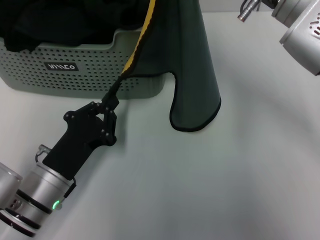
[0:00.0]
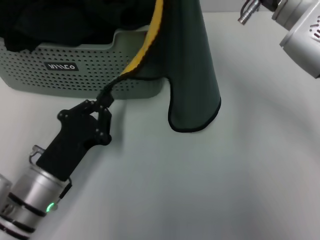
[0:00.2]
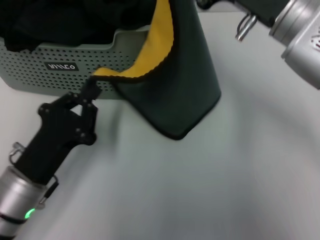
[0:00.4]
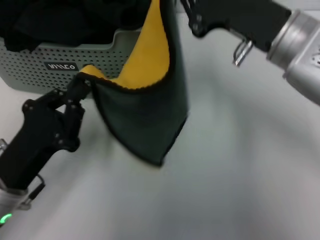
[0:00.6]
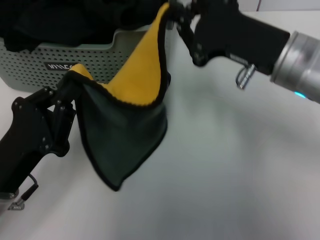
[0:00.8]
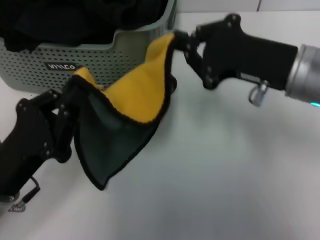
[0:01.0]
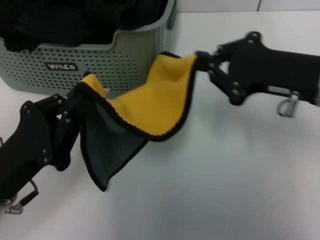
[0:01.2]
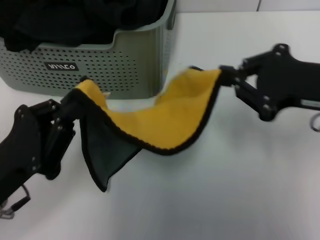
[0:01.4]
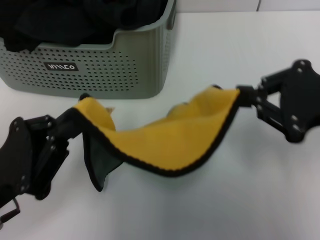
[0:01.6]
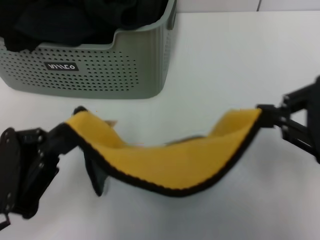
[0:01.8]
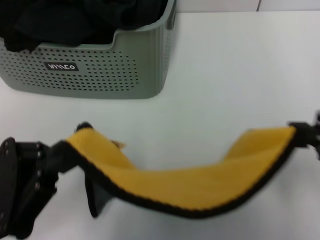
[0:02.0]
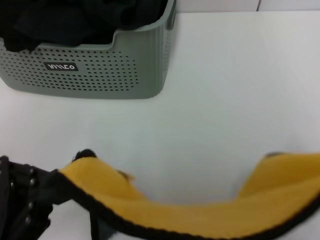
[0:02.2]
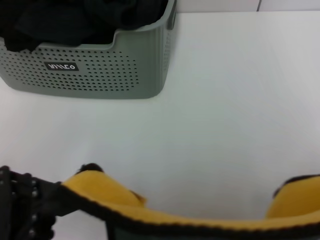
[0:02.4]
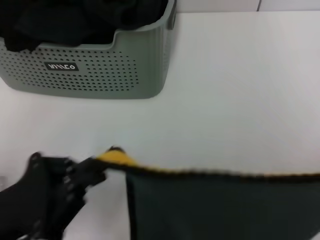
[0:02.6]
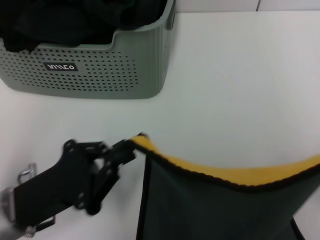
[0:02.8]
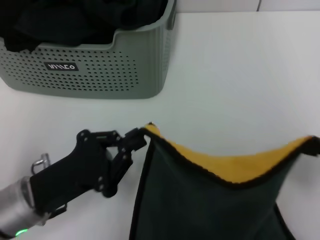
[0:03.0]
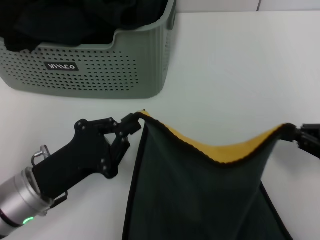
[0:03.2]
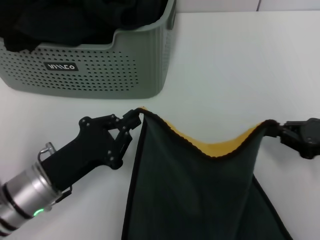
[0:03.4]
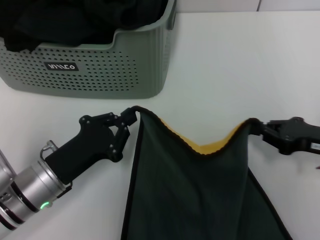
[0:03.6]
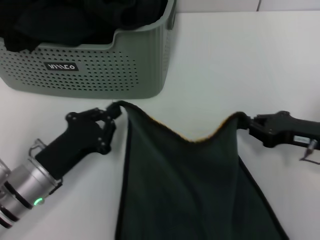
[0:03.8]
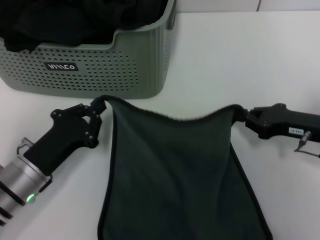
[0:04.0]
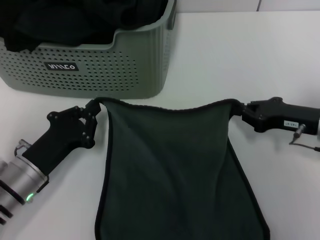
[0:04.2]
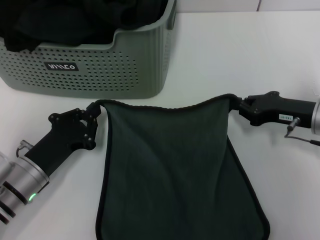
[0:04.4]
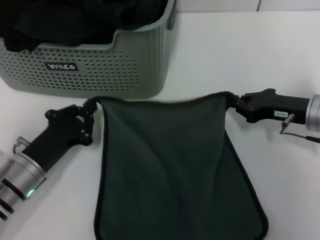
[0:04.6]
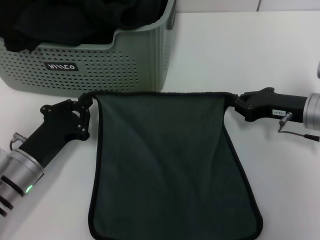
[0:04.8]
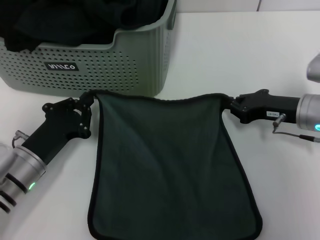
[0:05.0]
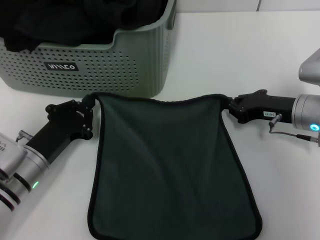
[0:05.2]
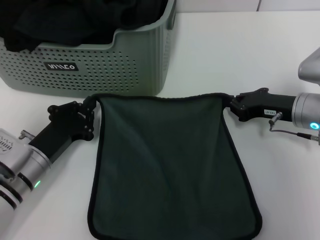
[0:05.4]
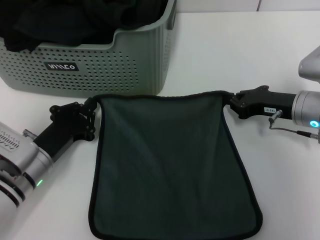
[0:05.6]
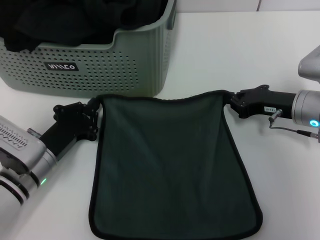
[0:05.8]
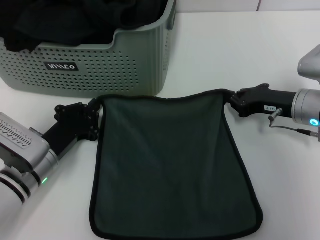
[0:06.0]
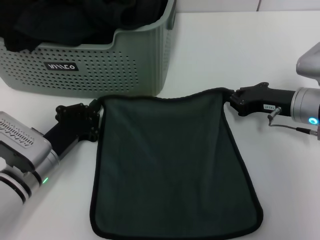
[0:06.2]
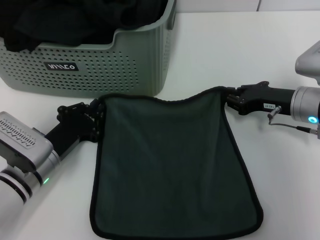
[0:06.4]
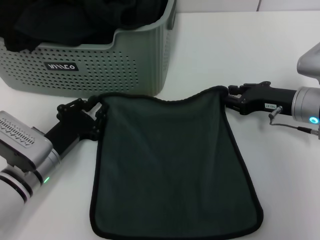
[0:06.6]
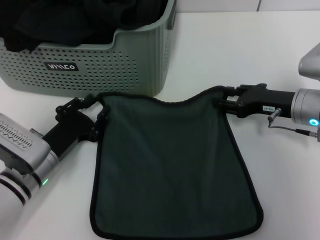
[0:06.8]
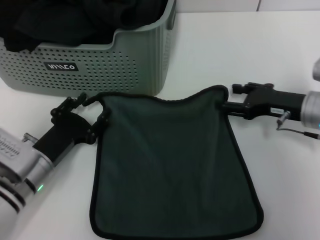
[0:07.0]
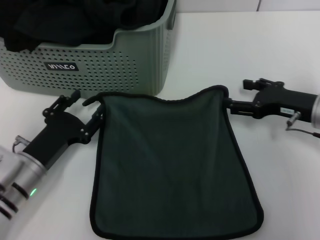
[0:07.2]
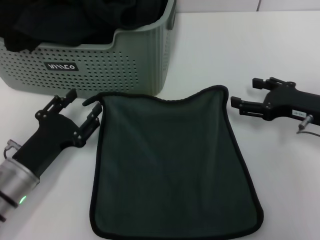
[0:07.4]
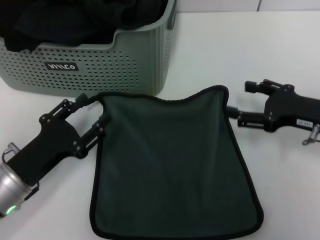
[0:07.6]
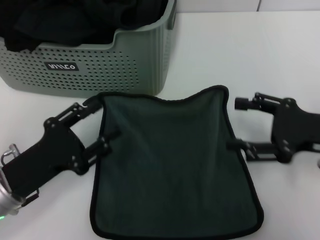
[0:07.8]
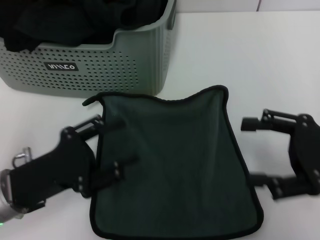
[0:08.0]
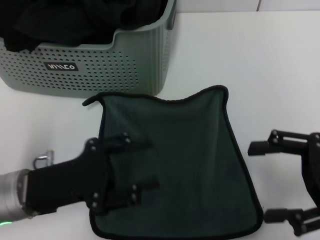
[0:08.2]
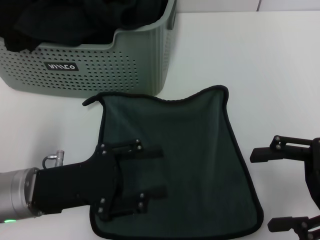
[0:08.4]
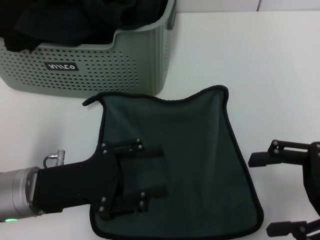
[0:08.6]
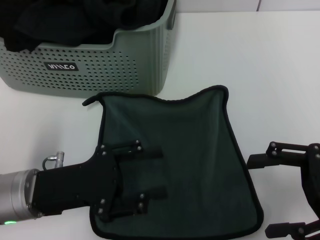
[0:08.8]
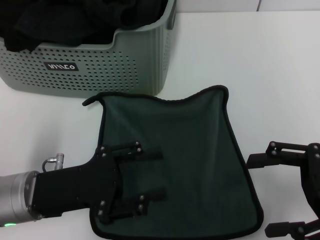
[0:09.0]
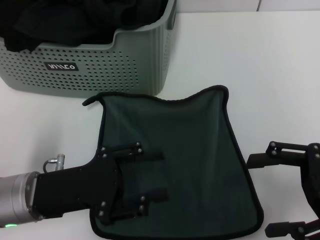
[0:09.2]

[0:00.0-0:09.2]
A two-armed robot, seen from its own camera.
Task of the whole recording: pick up the towel from the storage box and lay it flat on the table.
Step, 0:00.0 to 0:06.6: Spread the towel flat with the right gripper.
0:00.0 to 0:01.6: The left gripper is displaced upward and to the left by approximately 10 cm. Meanwhile the right gripper shifts roughly 15 cm to the right and backward.
0:01.6 to 0:03.0: The left gripper ends up about 5 cm from where it was; the right gripper is displaced to the right and downward by approximately 15 cm.
0:03.0 to 0:04.6: The right gripper heads forward and to the left, covering roughly 15 cm, while the left gripper changes place by some 5 cm.
0:04.6 to 0:06.2: The grippers stay close to where they were, moving slightly.
0:06.2 to 0:07.6: The grippers both shift backward by some 5 cm. The right gripper opens its fingers, while the left gripper opens its fingers.
0:07.6 to 0:09.2: The left gripper ends up approximately 5 cm from where it was, while the right gripper moves backward, roughly 5 cm.

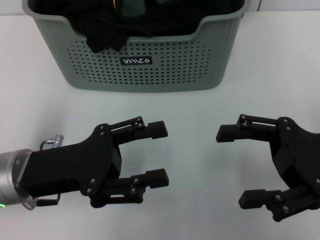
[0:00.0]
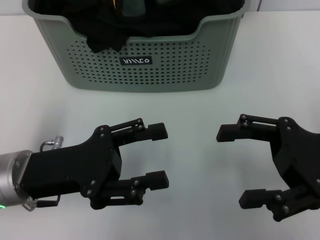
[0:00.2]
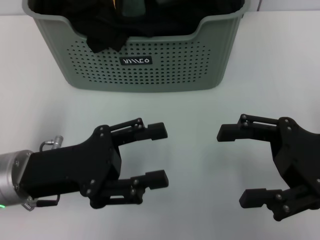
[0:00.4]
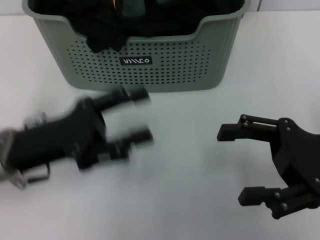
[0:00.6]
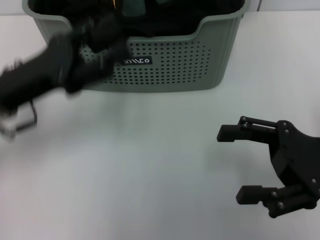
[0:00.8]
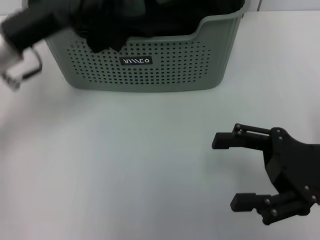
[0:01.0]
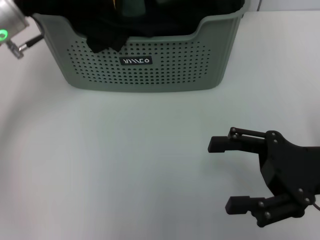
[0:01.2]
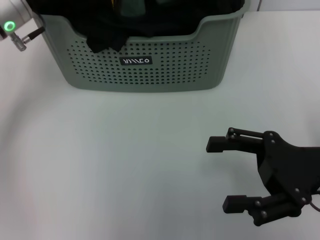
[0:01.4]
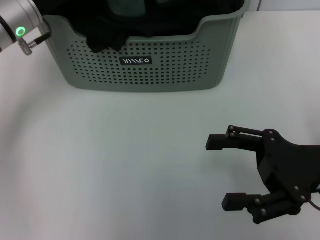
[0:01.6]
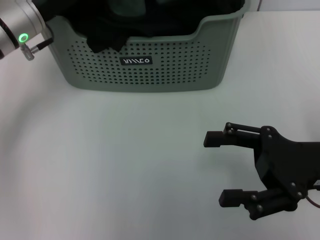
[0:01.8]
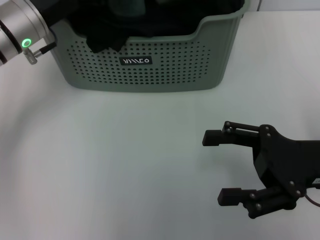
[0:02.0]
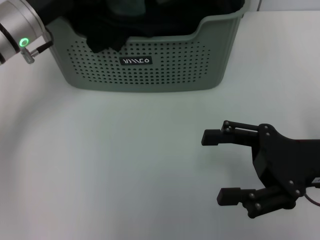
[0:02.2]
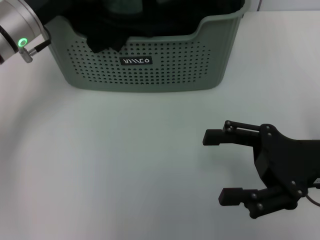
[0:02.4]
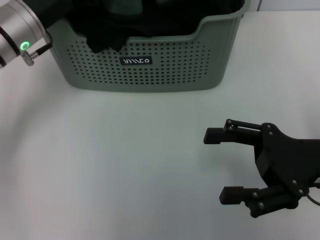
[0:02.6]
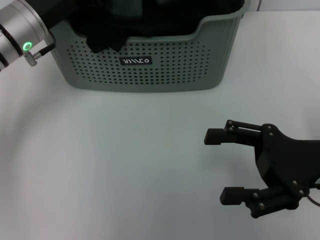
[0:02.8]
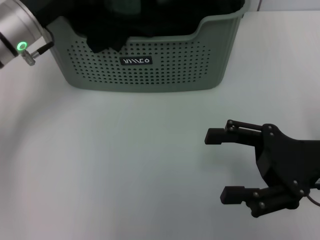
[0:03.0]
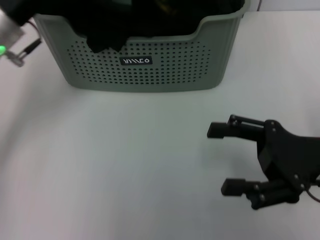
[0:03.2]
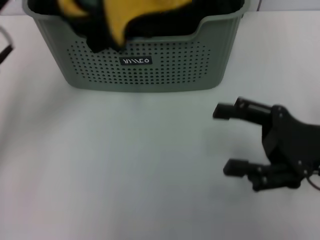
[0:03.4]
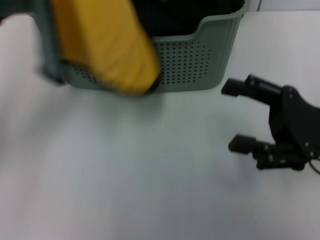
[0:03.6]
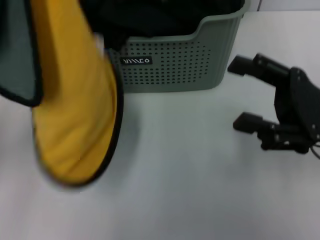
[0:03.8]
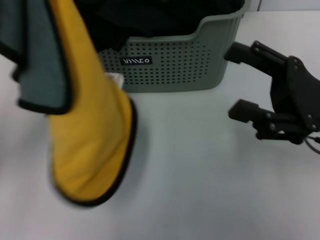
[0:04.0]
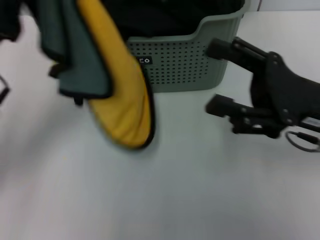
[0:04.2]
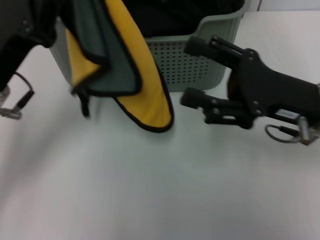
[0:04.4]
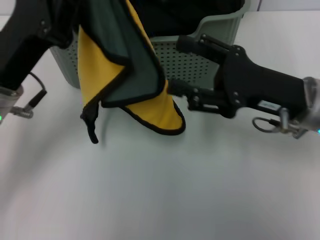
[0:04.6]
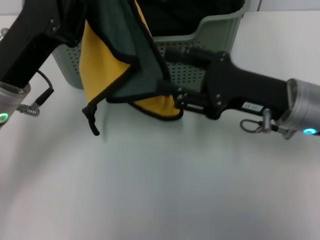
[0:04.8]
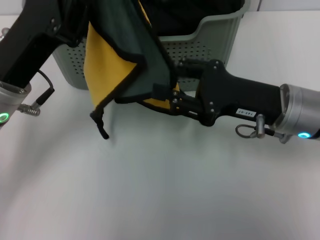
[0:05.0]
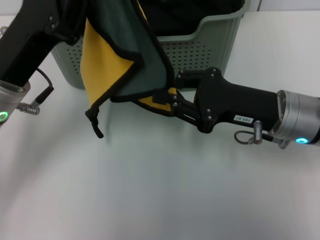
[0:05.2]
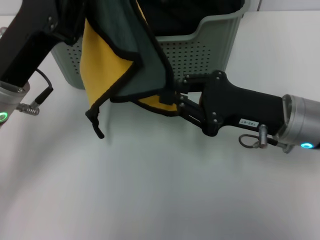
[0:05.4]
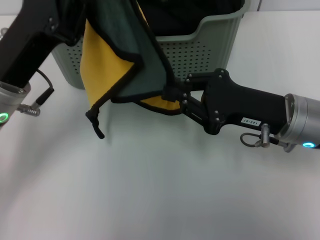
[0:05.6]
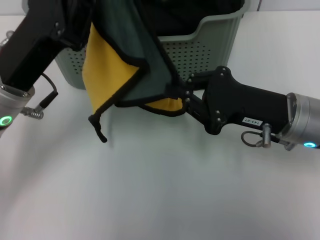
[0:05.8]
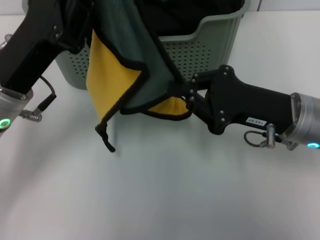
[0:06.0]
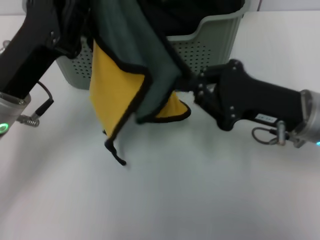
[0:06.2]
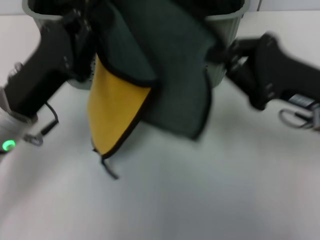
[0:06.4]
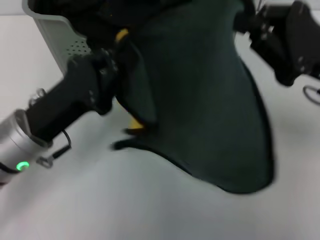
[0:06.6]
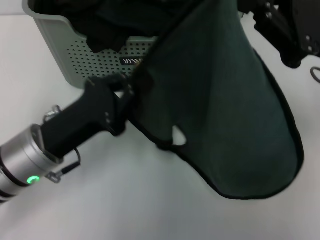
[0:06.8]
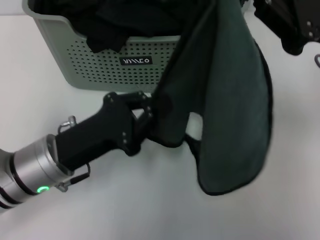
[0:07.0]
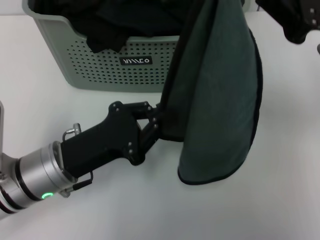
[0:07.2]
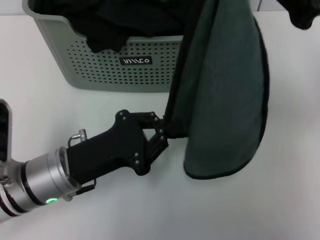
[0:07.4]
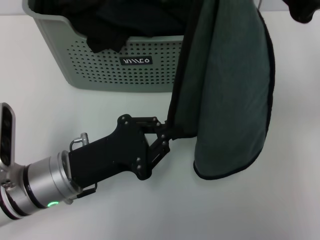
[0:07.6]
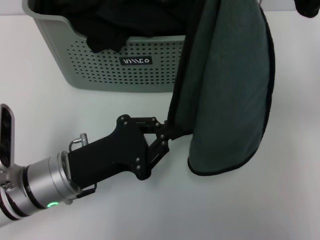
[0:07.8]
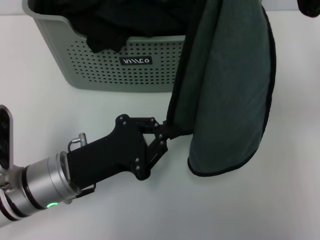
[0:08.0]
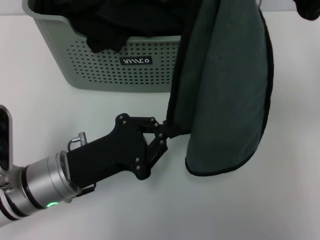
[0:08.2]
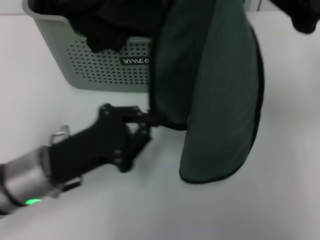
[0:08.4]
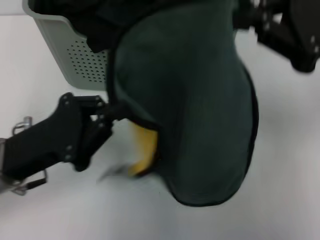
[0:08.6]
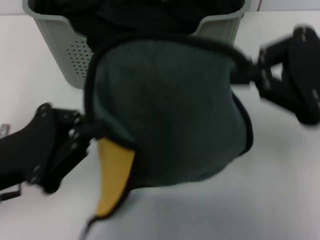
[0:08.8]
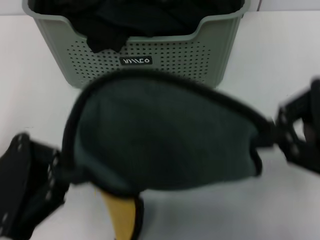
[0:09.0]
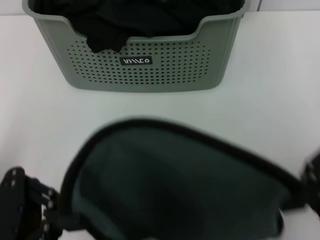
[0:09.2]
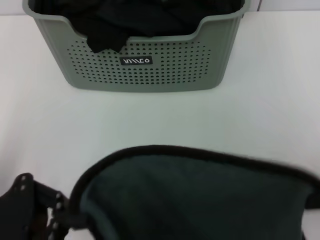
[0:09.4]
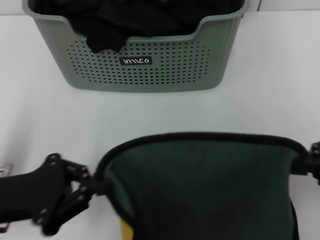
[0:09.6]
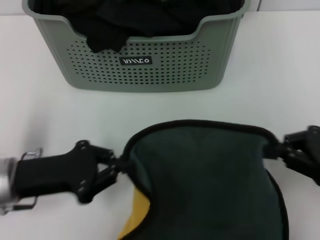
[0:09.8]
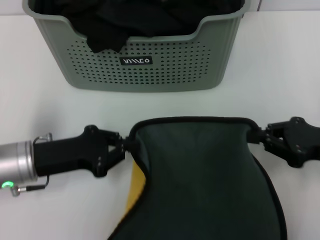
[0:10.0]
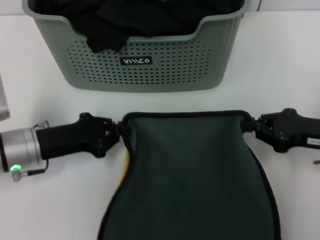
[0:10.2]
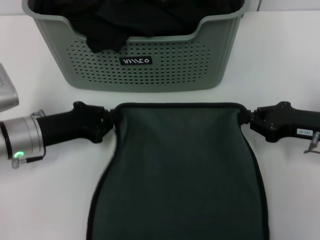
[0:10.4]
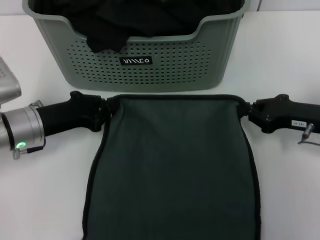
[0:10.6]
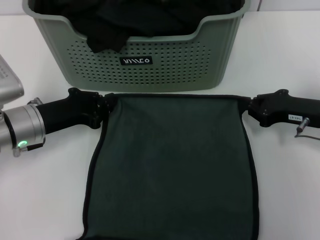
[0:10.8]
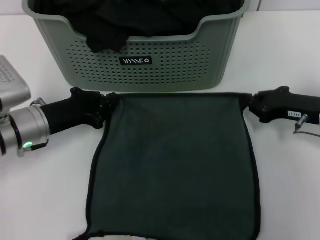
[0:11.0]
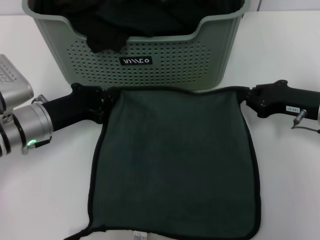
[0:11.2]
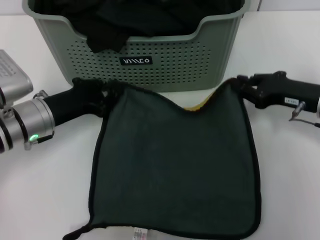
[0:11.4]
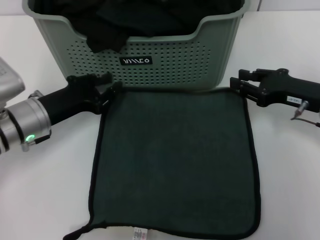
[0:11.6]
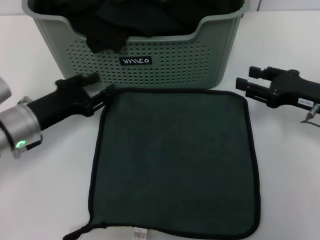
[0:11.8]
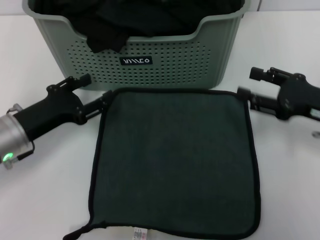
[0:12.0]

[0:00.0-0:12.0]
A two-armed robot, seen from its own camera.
Task of the whole recording: pick up the towel from the storage box and lay it flat on the table.
Step, 0:00.0 to 0:03.0: Pick up a towel with the left gripper.
Step, 0:03.2 to 0:05.8: Spread the towel flat with the left gripper.
Step, 0:06.0 to 0:11.6: Spread the towel flat with the right gripper.
0:00.0 to 0:01.6: The left gripper goes about 15 cm forward.
0:01.6 to 0:03.0: The left gripper closes.
0:03.0 to 0:04.4: The left gripper heads backward, covering some 10 cm; the right gripper moves some 5 cm.
0:04.4 to 0:06.0: The right gripper closes up.
0:06.0 to 0:07.6: The left gripper moves downward, about 10 cm. Meanwhile the right gripper moves upward, approximately 15 cm.
0:07.6 to 0:09.0: The left gripper goes some 10 cm to the left and upward, while the right gripper goes roughly 10 cm backward.
0:09.0 to 0:10.4: The right gripper heads downward and forward, covering some 15 cm. The left gripper heads forward and downward, covering some 15 cm.
0:10.4 to 0:12.0: The right gripper opens its fingers. The left gripper opens up.
